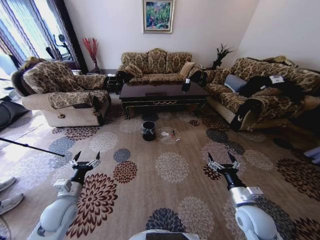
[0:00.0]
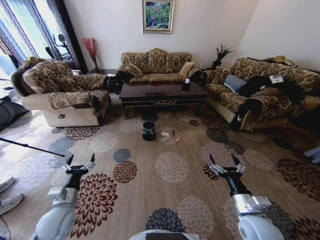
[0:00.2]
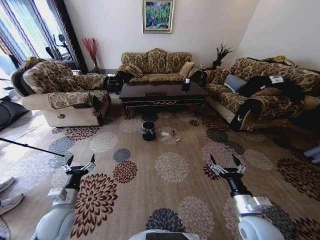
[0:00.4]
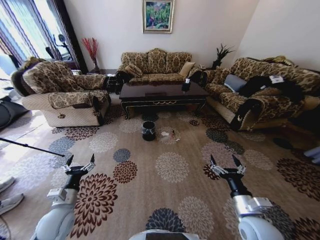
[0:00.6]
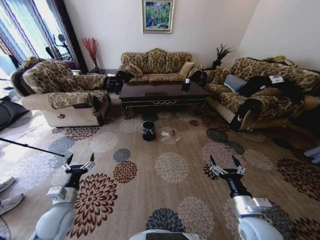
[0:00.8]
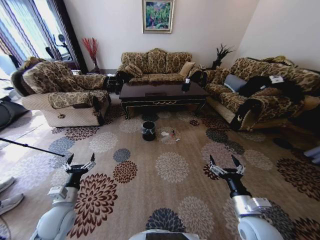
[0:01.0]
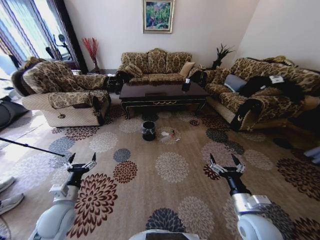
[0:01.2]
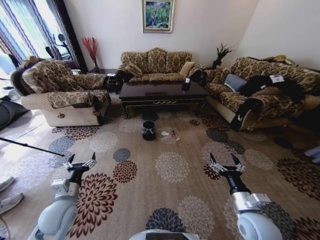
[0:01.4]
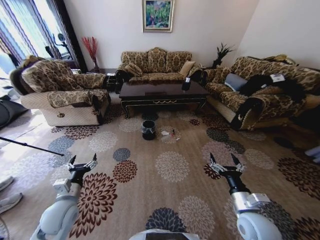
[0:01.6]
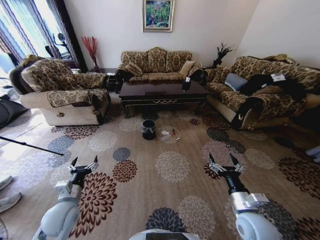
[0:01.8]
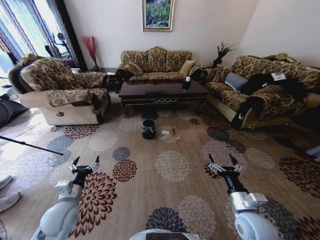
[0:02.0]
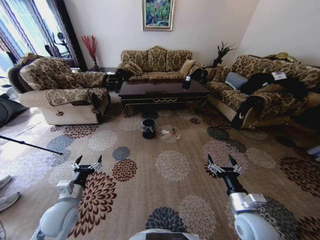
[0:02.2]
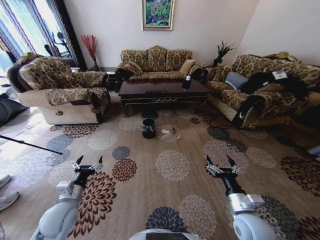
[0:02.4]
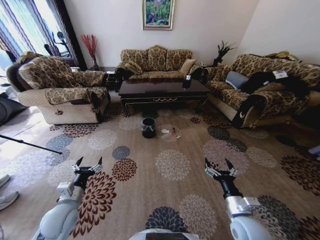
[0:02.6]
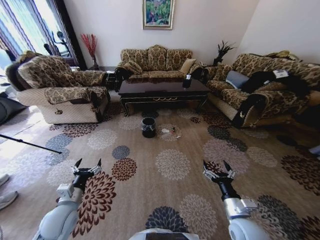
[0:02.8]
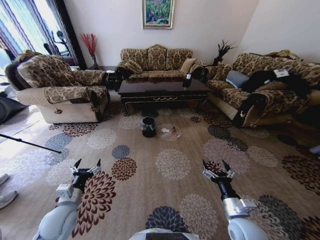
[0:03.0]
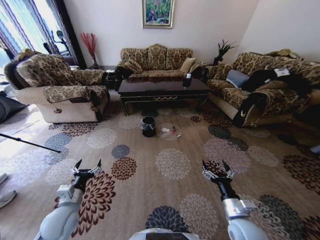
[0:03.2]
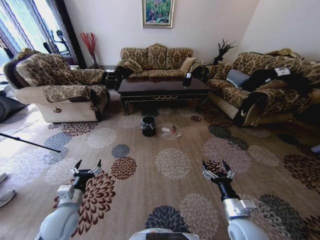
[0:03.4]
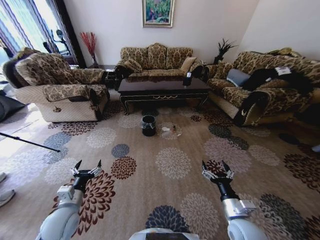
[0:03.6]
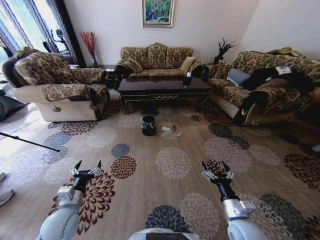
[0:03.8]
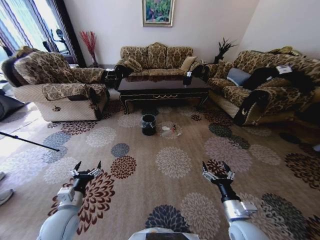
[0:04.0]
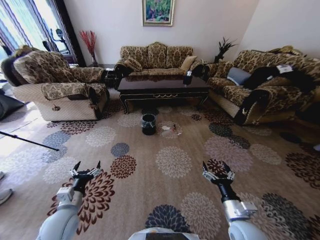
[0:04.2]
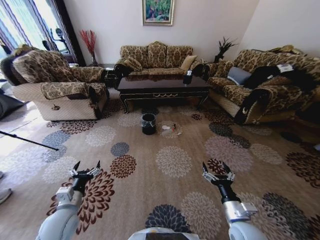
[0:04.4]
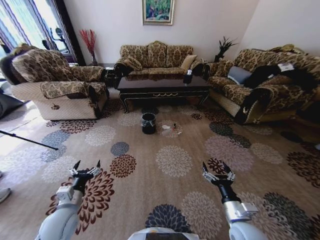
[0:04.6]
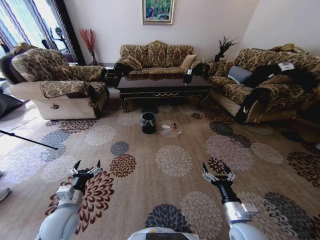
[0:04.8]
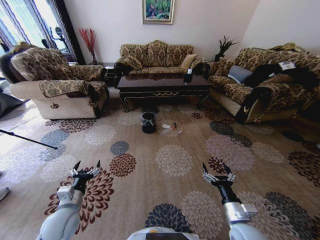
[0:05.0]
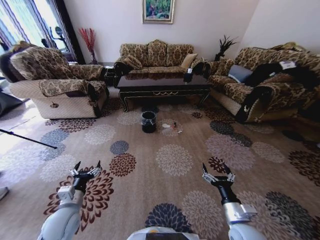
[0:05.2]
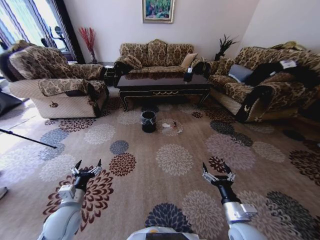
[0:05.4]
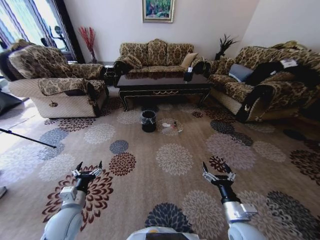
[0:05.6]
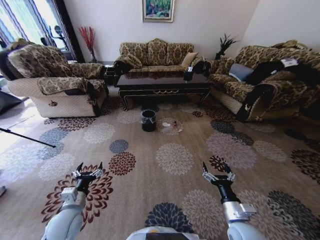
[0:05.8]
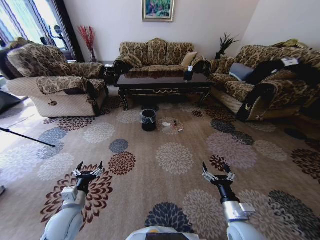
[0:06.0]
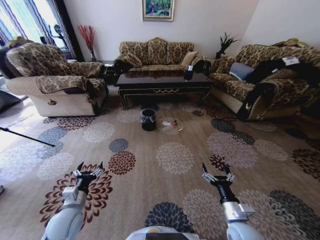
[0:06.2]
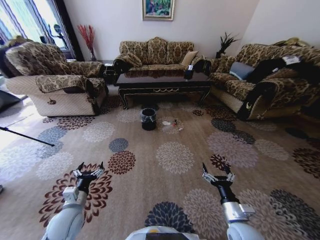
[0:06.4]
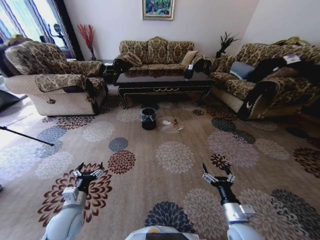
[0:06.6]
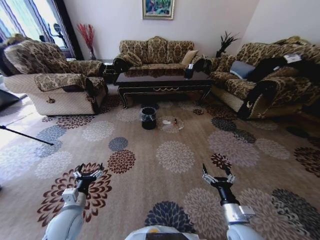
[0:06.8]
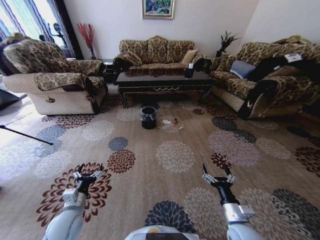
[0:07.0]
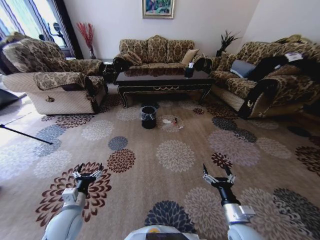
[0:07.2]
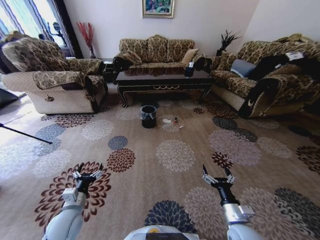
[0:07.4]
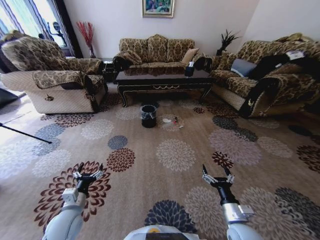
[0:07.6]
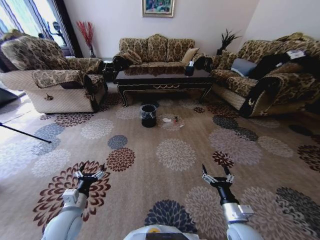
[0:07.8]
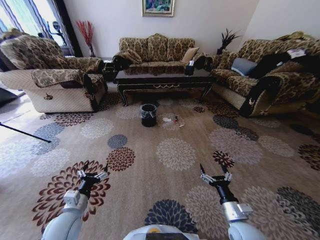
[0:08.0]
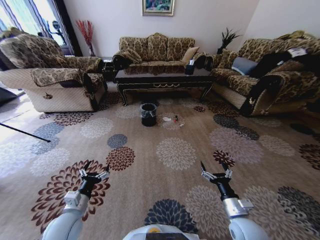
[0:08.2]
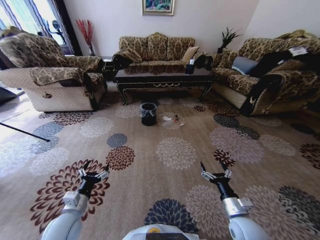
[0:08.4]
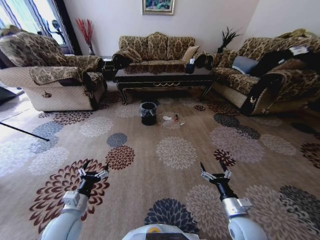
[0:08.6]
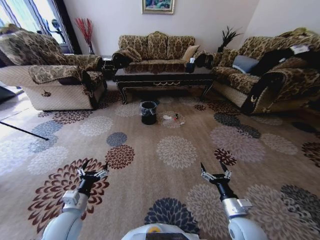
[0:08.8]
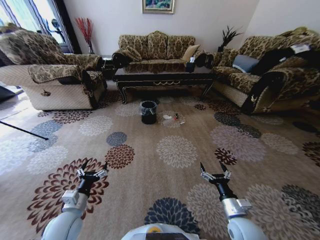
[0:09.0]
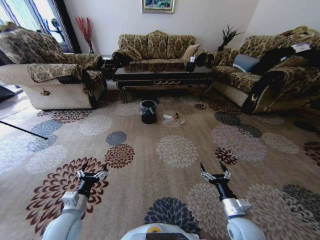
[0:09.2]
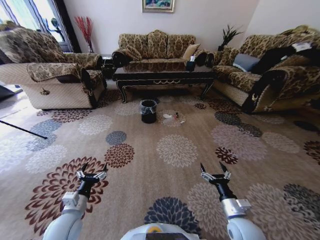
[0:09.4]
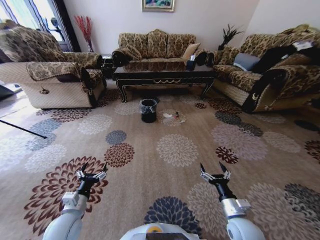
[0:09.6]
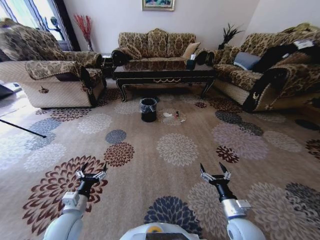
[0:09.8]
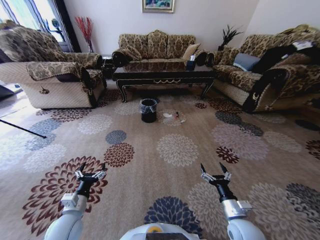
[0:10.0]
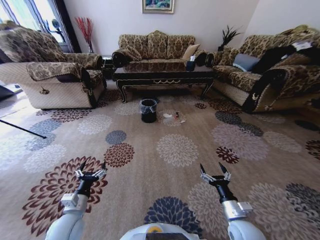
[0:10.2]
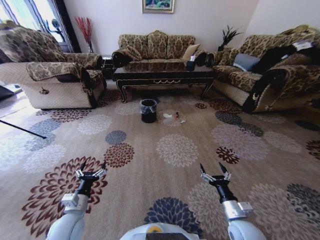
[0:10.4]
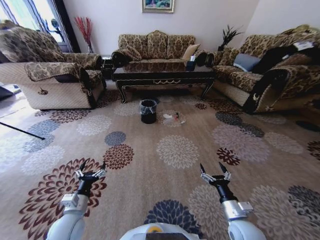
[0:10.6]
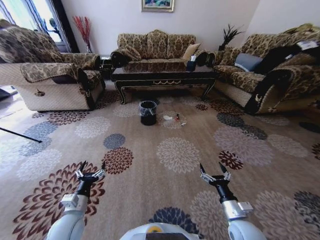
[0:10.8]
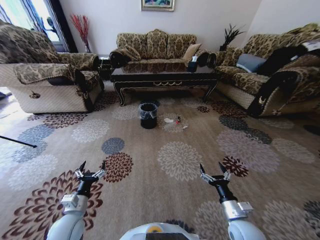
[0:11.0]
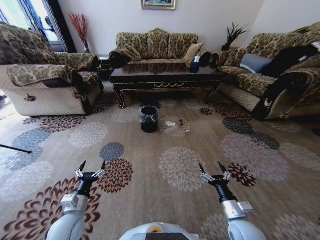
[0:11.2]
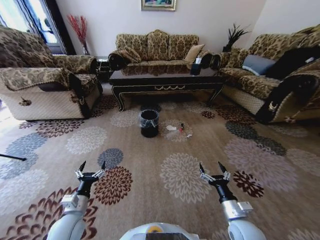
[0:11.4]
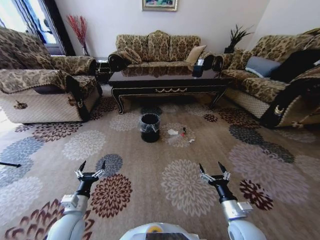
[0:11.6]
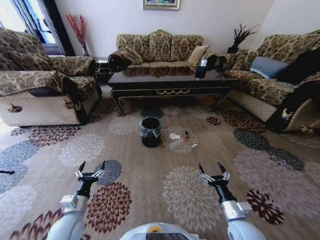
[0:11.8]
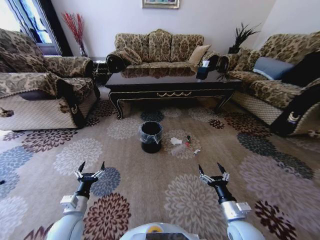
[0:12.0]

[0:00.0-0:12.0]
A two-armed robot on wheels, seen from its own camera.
Task of the whole recording: Move to the front of the table and pick up the trash from the floor, then place it into the trash bin.
0:09.0 to 0:10.4: The grippers stay close to where they were, moving slightly.

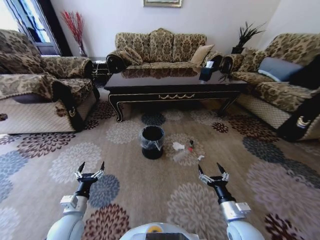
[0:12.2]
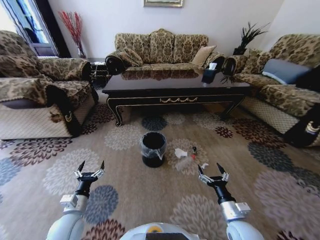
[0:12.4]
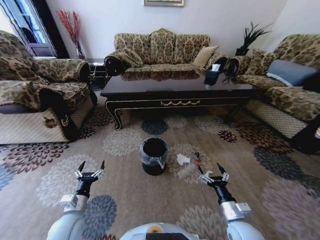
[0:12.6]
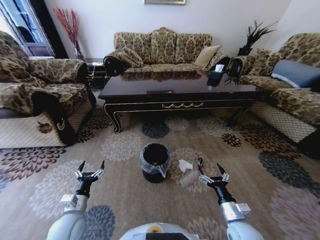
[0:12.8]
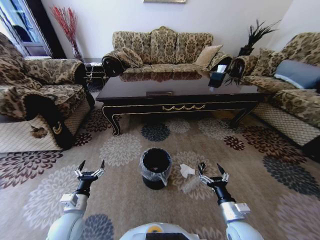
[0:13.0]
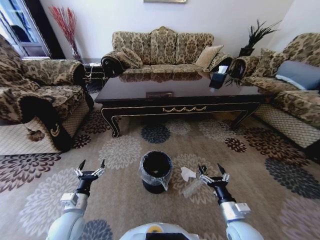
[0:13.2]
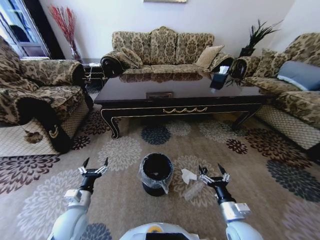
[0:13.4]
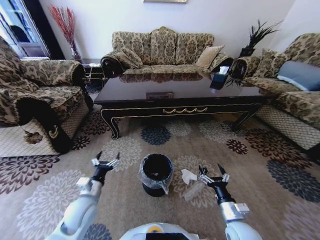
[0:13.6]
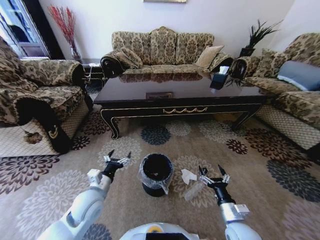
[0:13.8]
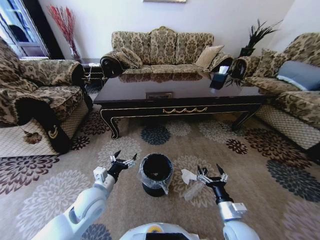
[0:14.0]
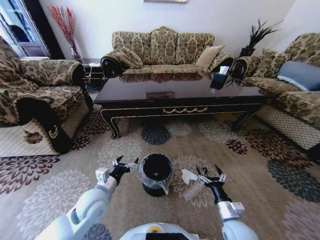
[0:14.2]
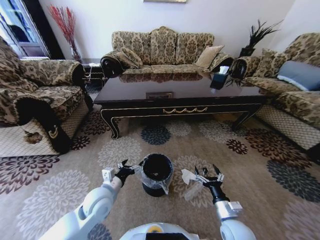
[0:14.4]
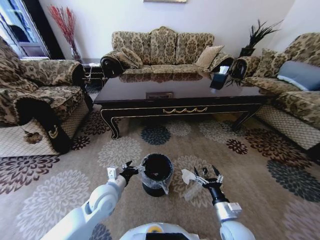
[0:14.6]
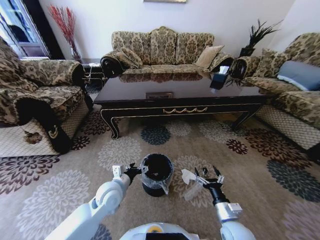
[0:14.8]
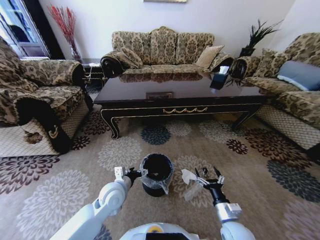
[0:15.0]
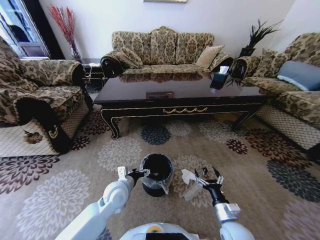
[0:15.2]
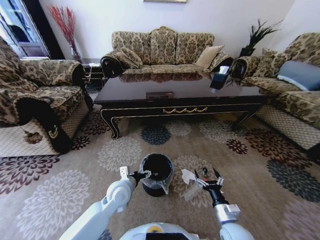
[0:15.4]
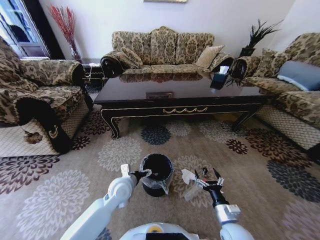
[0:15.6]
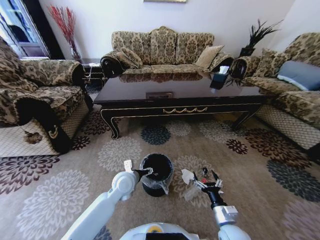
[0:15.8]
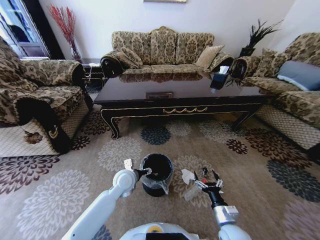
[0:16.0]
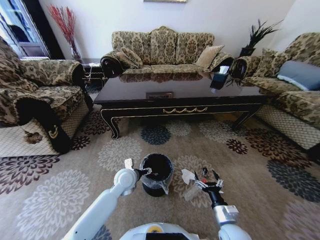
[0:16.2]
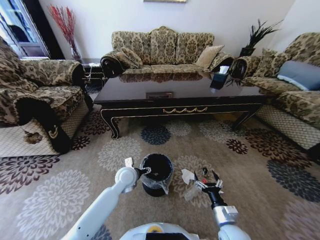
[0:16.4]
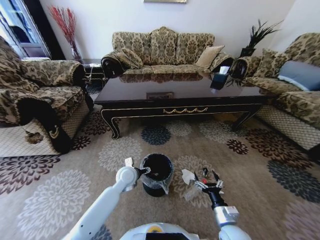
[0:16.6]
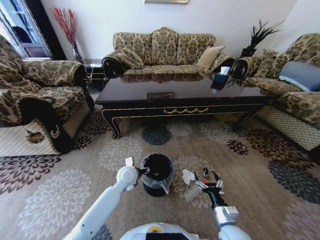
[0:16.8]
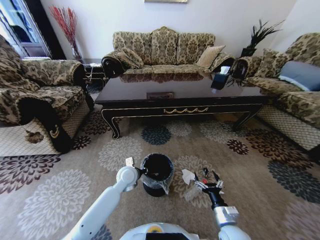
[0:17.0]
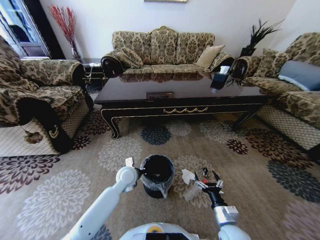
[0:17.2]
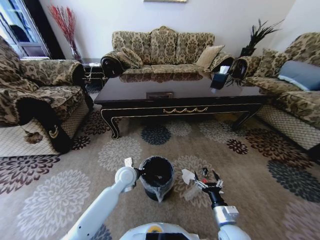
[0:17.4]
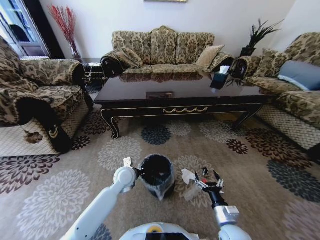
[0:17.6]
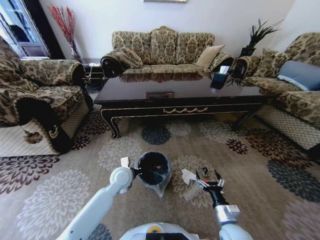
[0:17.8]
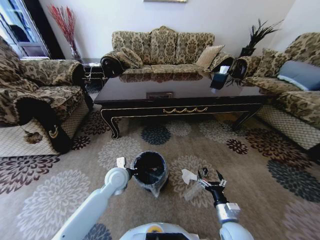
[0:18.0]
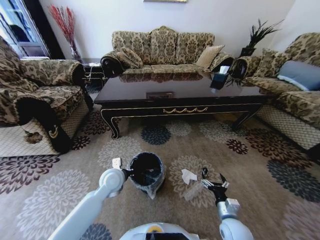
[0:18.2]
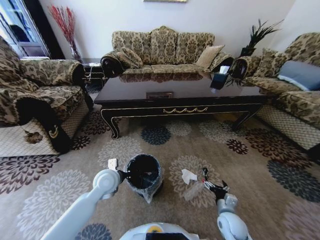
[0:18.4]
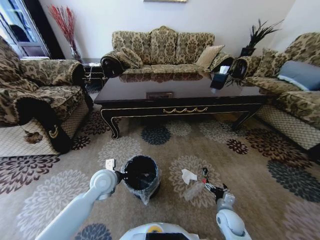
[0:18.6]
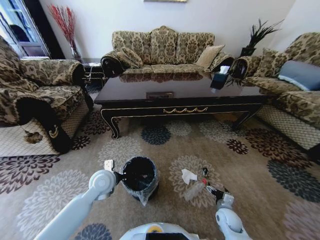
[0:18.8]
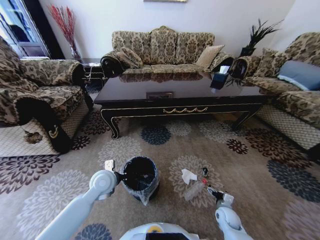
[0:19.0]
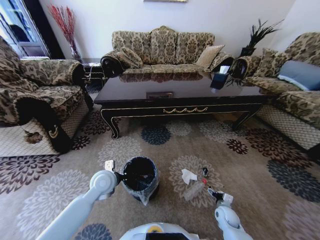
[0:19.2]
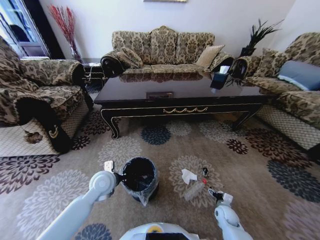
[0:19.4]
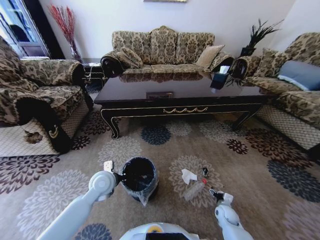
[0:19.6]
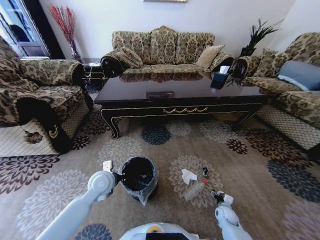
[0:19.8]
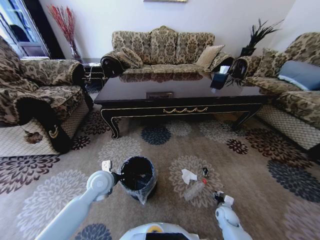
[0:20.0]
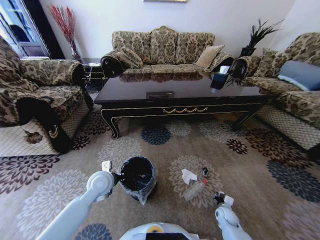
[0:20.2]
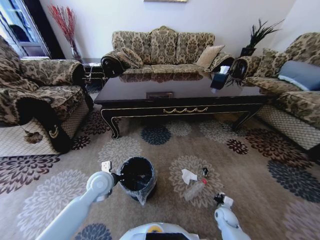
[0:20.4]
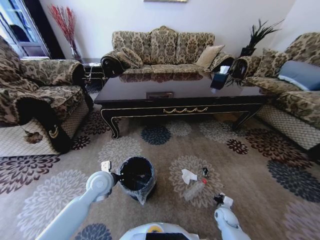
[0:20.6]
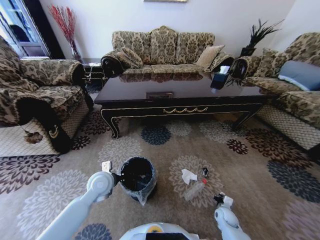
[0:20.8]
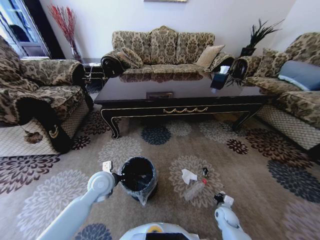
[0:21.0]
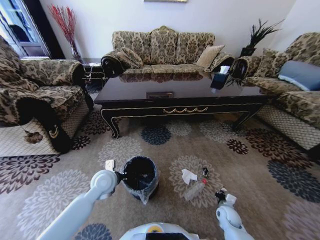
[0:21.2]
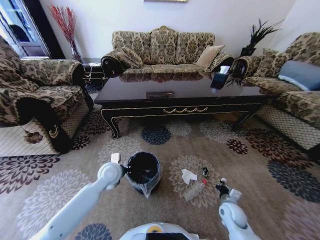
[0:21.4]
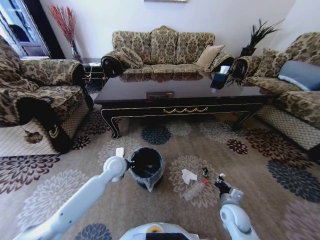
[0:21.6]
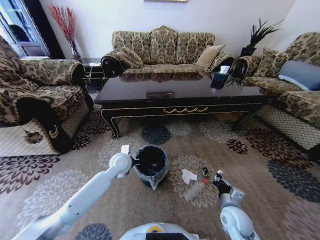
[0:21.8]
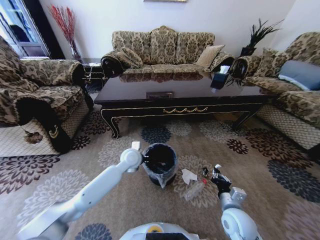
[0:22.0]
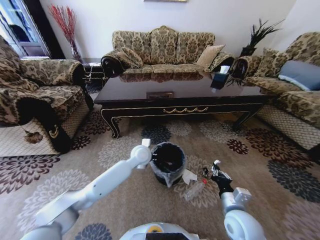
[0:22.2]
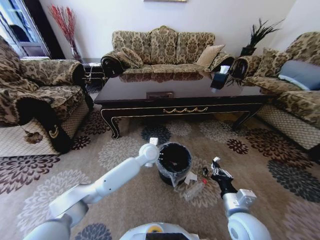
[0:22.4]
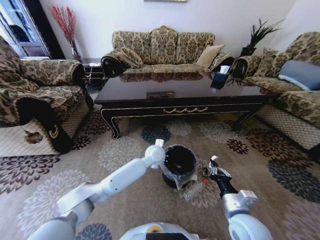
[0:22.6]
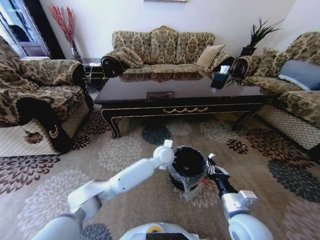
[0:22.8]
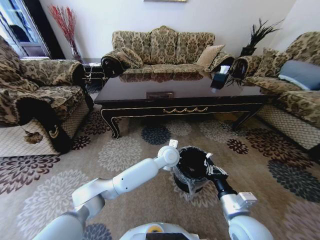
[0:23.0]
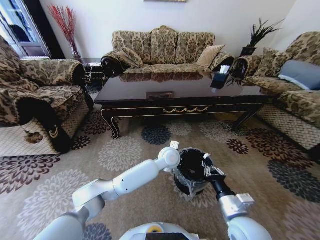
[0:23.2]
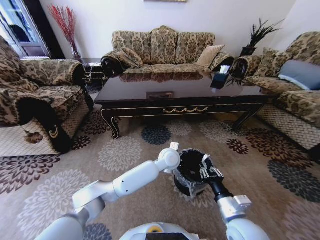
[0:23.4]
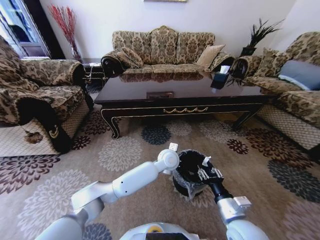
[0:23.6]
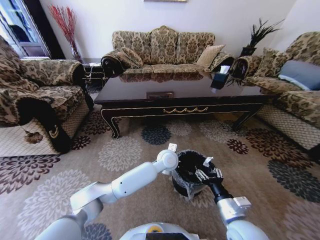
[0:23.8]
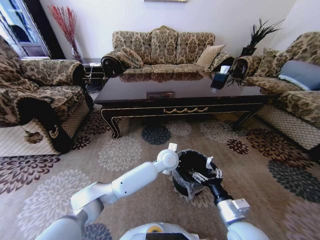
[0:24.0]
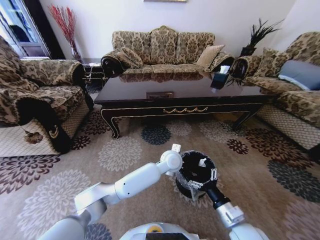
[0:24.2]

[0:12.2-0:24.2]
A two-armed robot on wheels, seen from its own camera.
Task of the whole recording: Move to the front of the table and pick up the trash from the floor, then place it into the trash bin.
0:12.2 to 0:13.8: The left gripper heads to the right, upward and forward, covering some 10 cm.
0:13.8 to 0:15.2: The left gripper shifts approximately 10 cm to the right.
0:15.2 to 0:16.6: The left gripper is displaced forward by about 10 cm.
0:16.6 to 0:18.2: The left gripper shifts by about 5 cm, and closes up.
0:18.2 to 0:19.8: The right gripper moves downward, to the right and forward, roughly 20 cm.
0:19.8 to 0:21.2: The right gripper closes.
0:21.2 to 0:22.6: The right gripper heads upward and to the left, covering approximately 25 cm; the left gripper heads to the right and forward, covering about 25 cm.
0:22.6 to 0:24.2: The left gripper moves to the right, some 5 cm. The right gripper opens its fingers.
